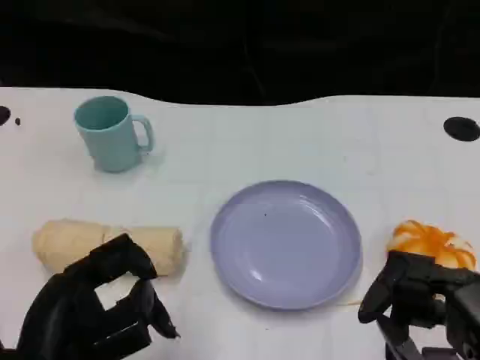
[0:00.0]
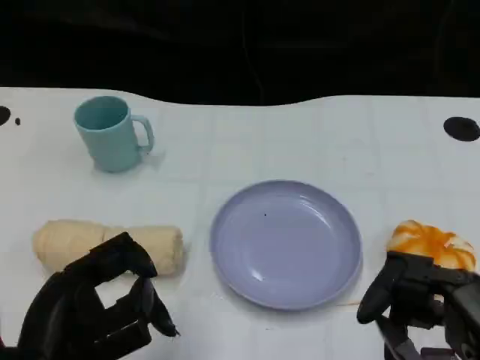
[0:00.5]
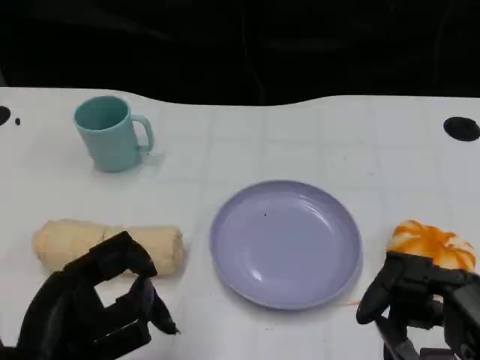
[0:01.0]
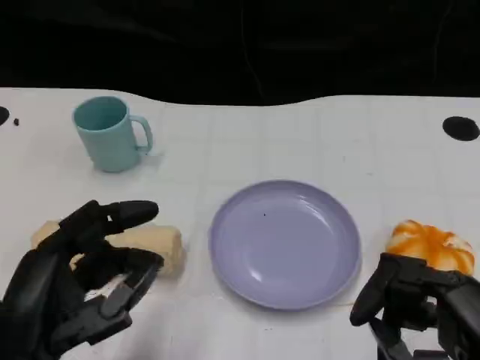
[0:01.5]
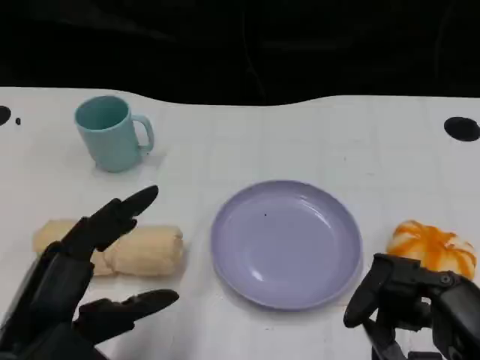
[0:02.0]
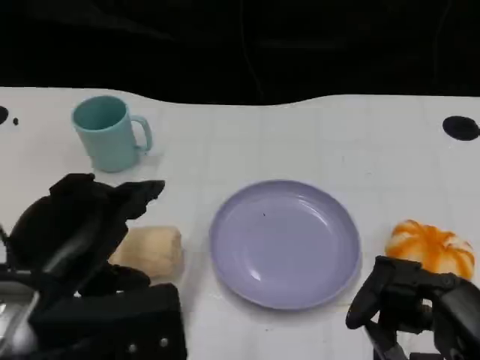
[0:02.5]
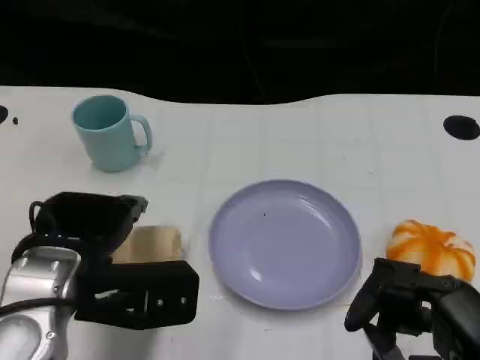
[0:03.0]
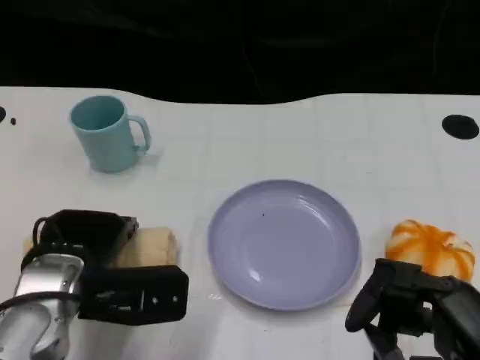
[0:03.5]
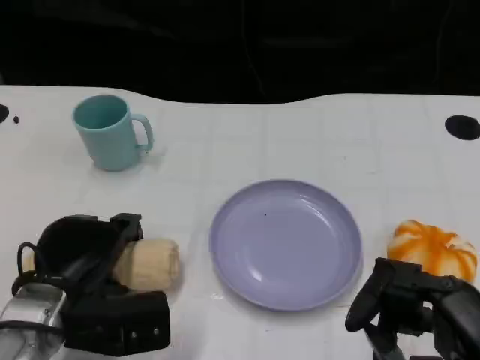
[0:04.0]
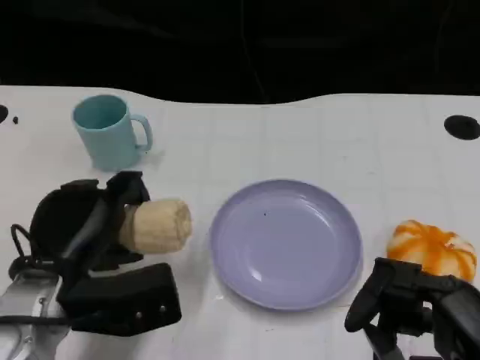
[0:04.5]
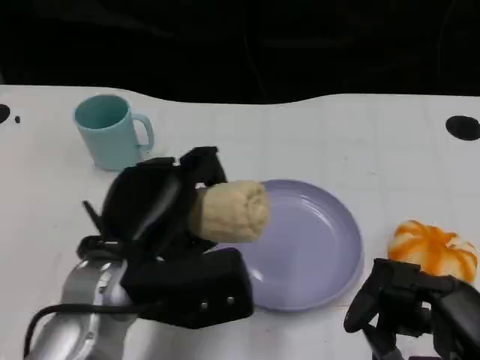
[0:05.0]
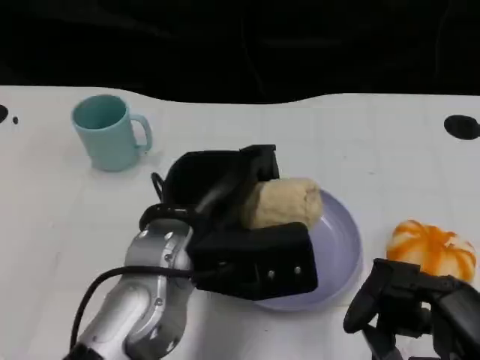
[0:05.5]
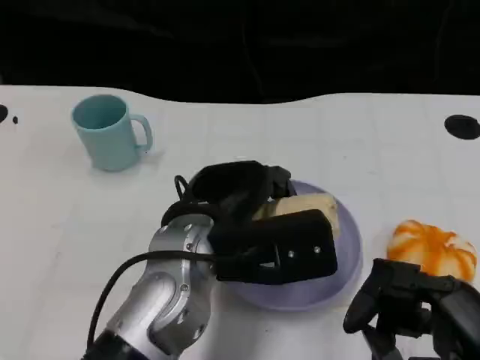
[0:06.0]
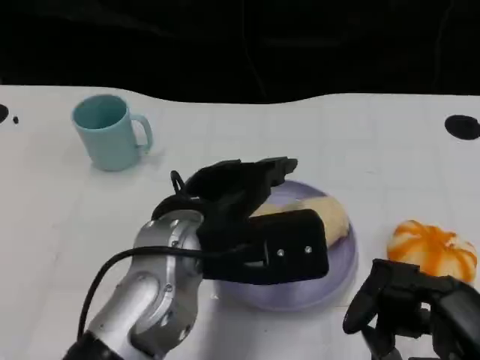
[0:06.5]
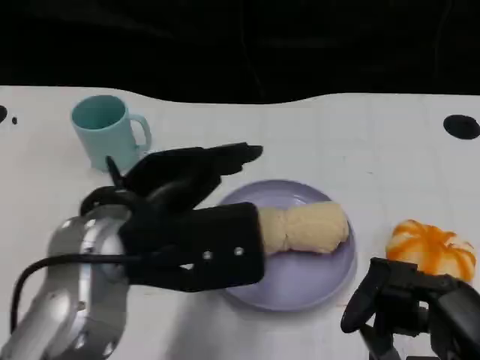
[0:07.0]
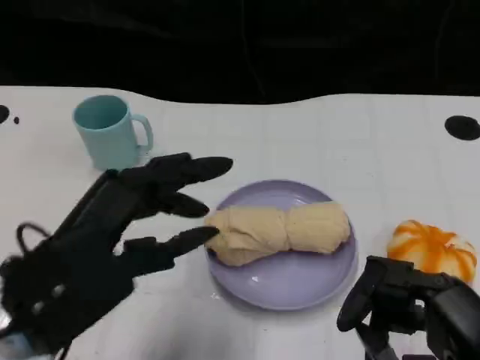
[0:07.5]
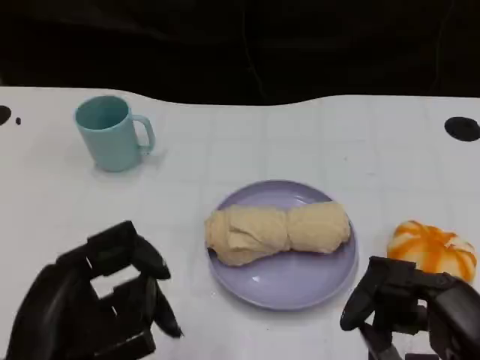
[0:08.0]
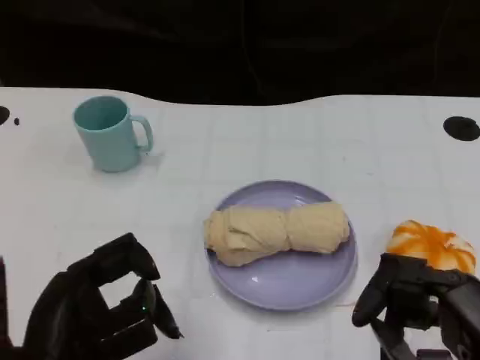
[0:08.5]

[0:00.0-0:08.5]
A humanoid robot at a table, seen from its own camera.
Task of the whole recording: Grasp the towel on the left side of the plate with the left hand and place it into the plate.
0:02.0 to 0:04.0: The left hand goes roughly 15 cm forward and downward.
0:04.0 to 0:06.5: The left hand shifts roughly 15 cm to the right and upward.
0:06.5 to 0:08.5: The left hand is displaced backward and to the left by about 15 cm.

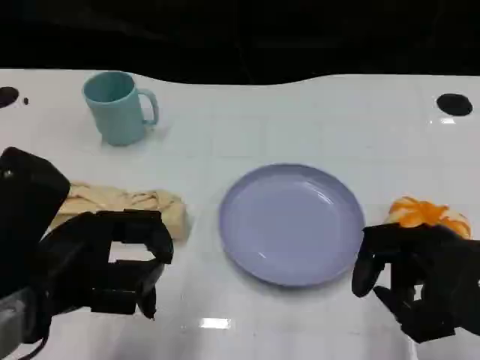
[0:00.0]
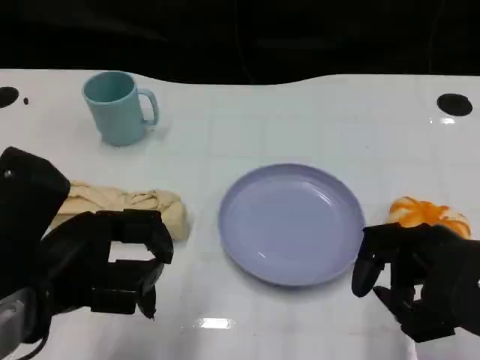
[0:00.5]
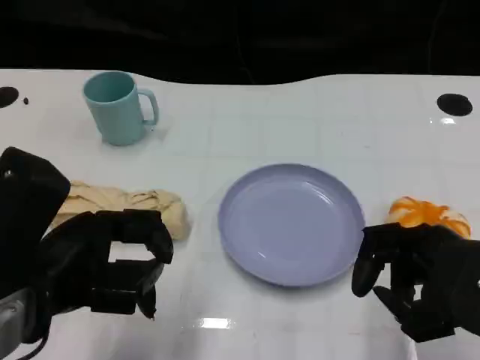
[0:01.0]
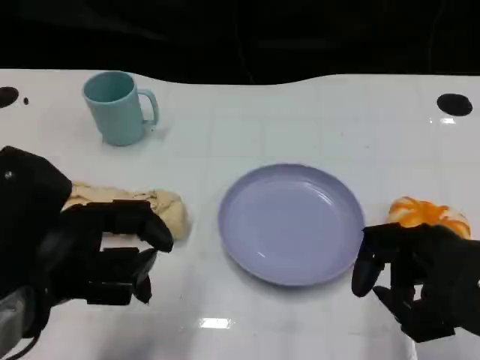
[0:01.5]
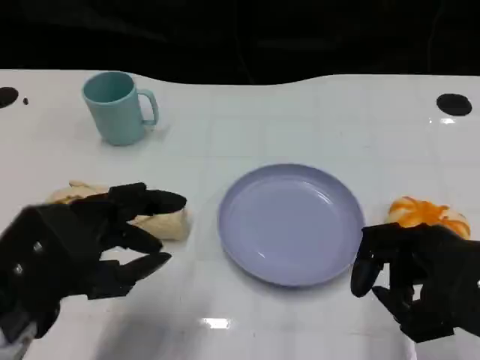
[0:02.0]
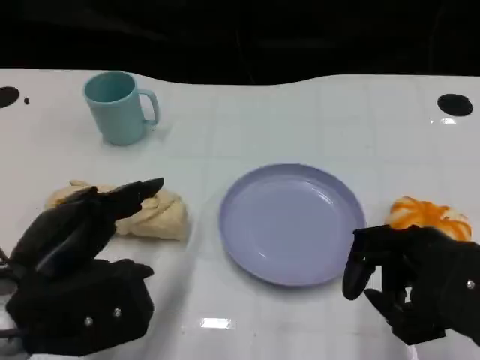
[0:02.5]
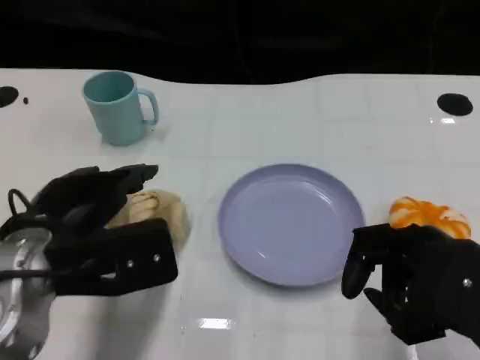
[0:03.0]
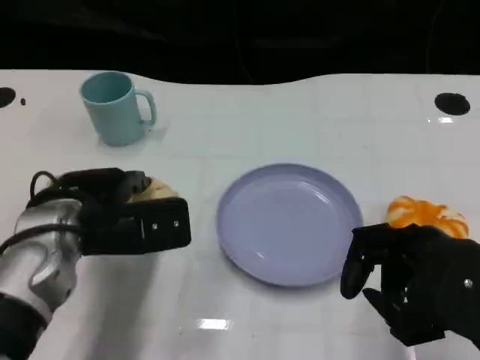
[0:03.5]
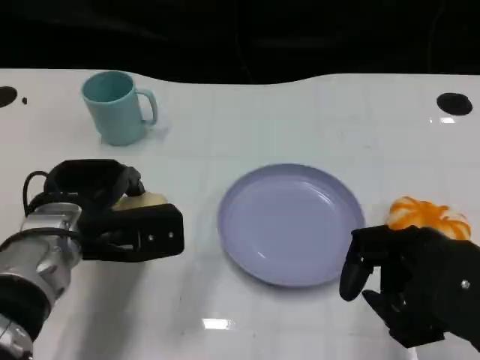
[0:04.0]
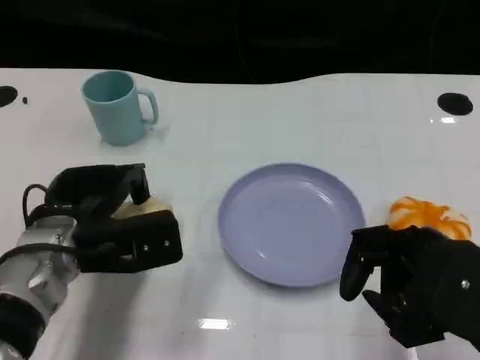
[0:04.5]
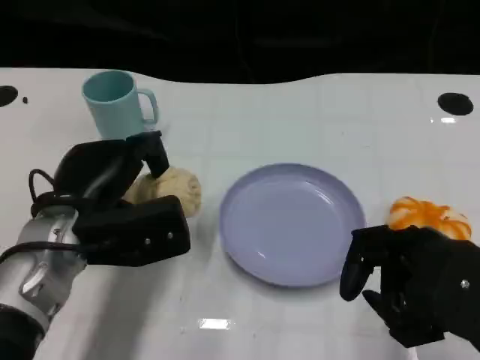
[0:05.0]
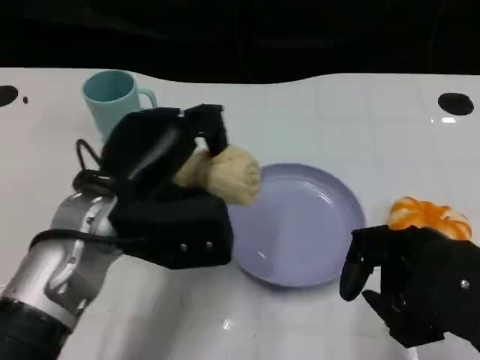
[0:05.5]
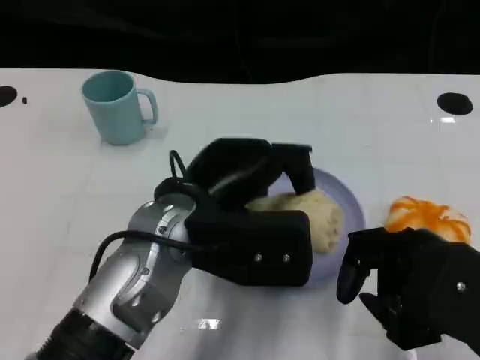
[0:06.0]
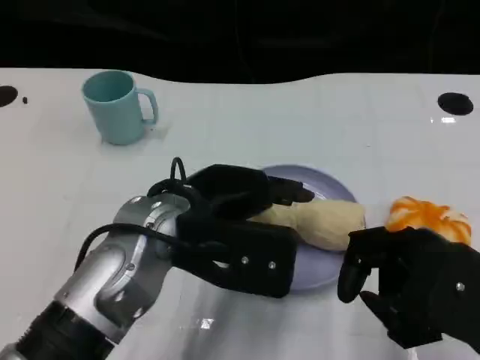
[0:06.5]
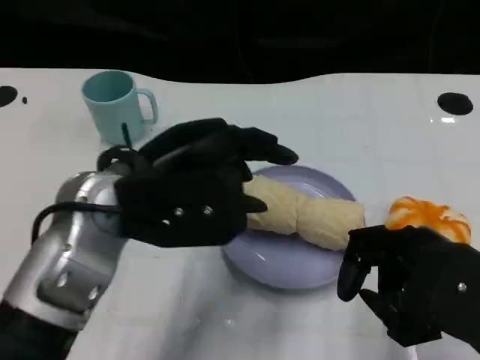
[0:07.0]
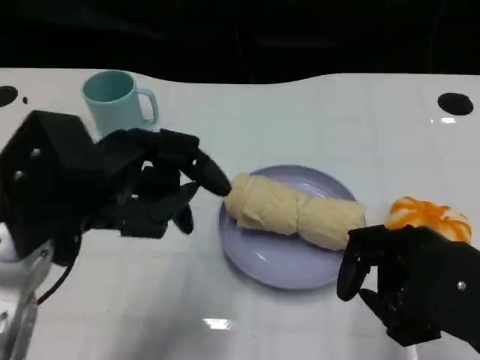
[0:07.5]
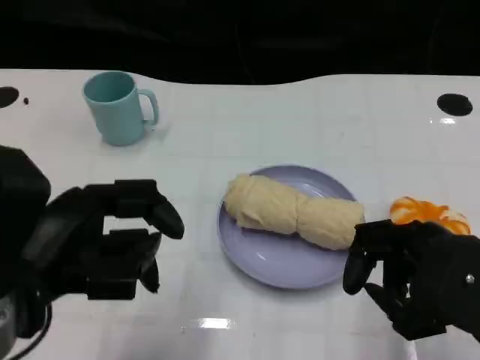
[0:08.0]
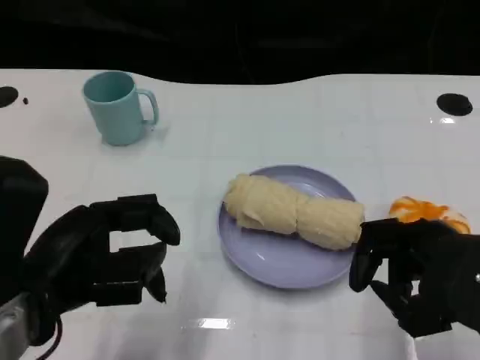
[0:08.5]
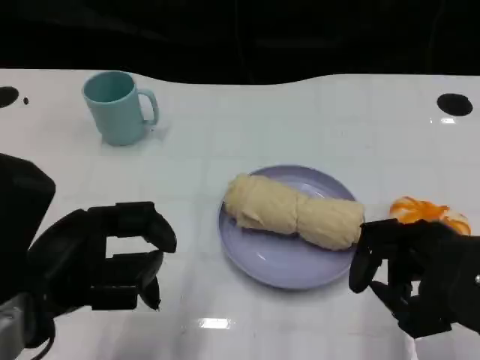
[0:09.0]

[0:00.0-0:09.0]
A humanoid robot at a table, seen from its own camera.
Task of the whole recording: Grasp the towel on the left side of the plate with the left hand and place it into the plate.
0:02.0 to 0:04.5: The left hand shifts roughly 10 cm forward and downward.
0:04.5 to 0:07.0: The left hand shifts about 10 cm upward.
0:07.0 to 0:09.0: The left hand goes about 10 cm to the left and backward.

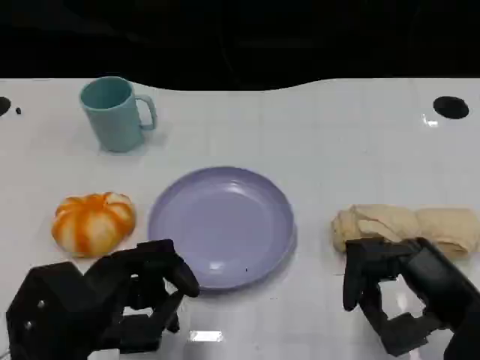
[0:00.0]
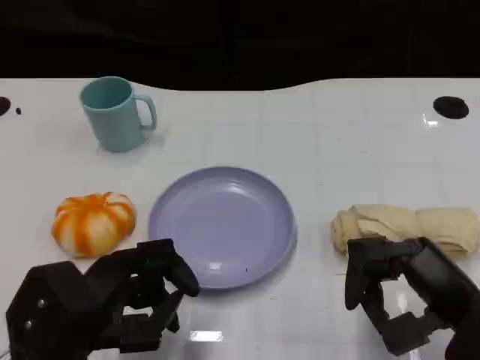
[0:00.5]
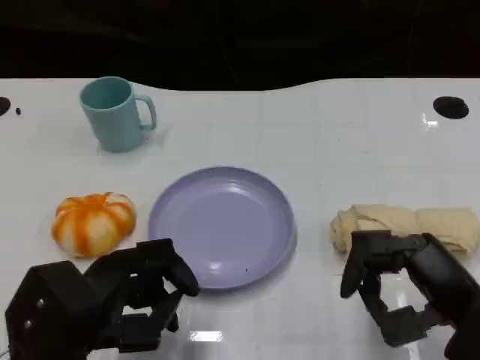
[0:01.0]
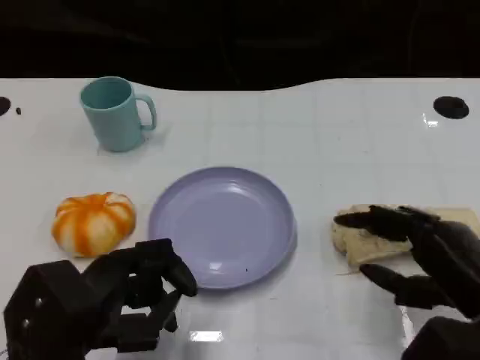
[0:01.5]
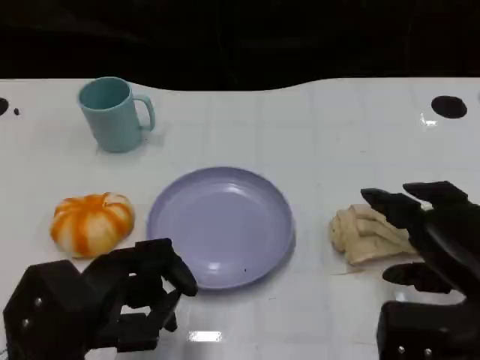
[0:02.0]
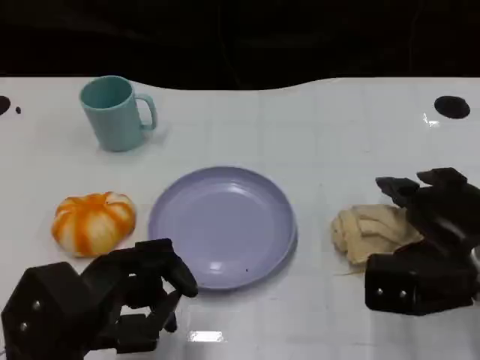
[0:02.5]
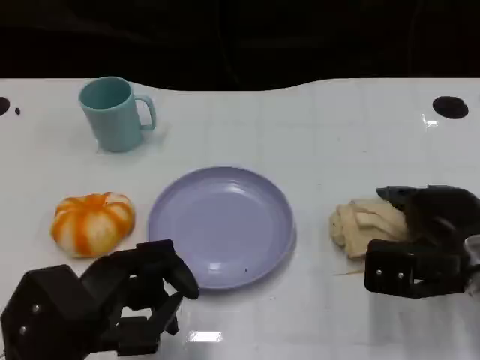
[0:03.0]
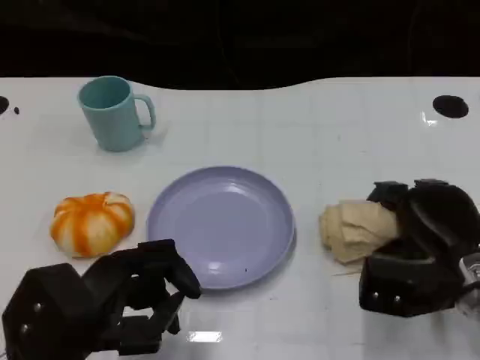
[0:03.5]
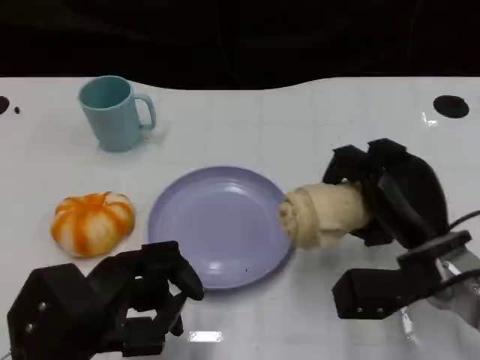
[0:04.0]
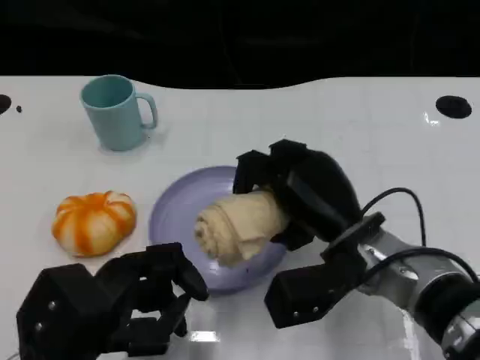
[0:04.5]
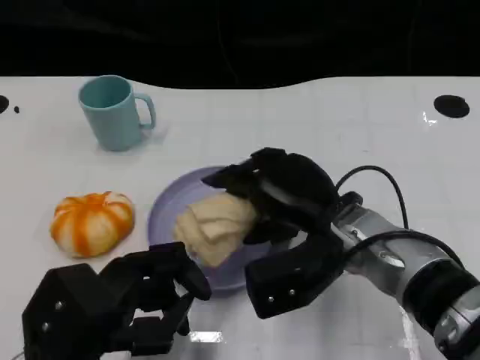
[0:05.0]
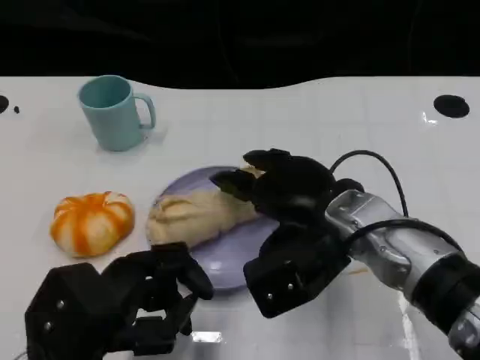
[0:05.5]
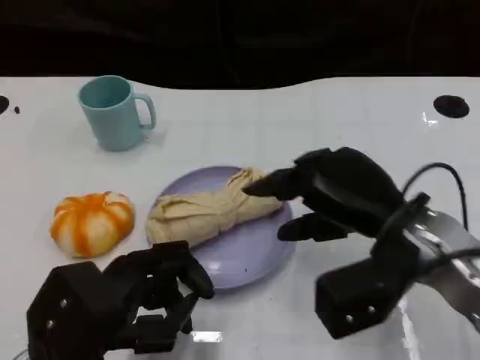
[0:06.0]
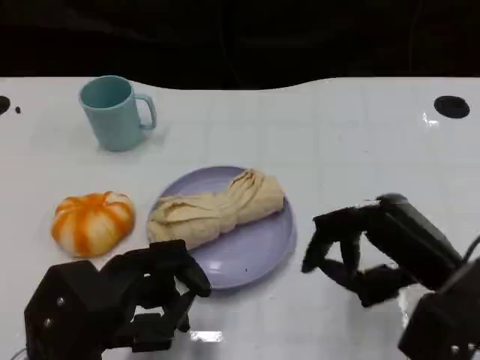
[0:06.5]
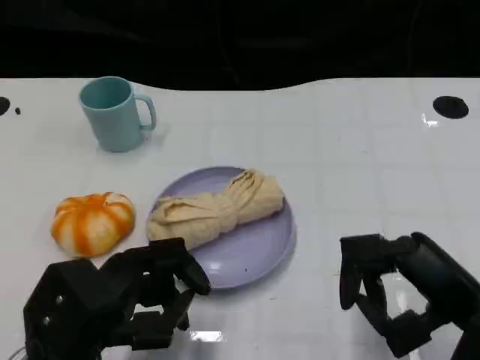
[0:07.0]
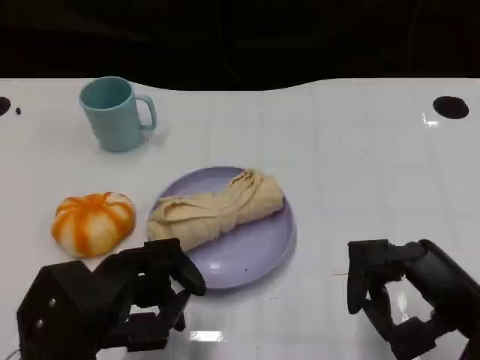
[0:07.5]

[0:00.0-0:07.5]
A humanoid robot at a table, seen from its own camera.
Task of the whole recording: Grasp the towel on the left side of the plate with the left hand and place it into the plate.
0:02.0 to 0:04.0: The right hand travels forward and to the left by approximately 10 cm.
0:04.0 to 0:05.5: The right hand heads to the left and upward, covering approximately 10 cm.
0:05.5 to 0:07.5: The right hand heads to the right and backward, covering approximately 15 cm.

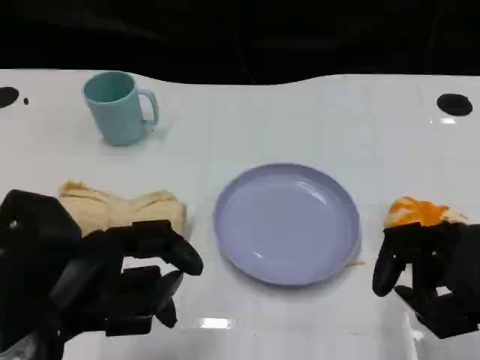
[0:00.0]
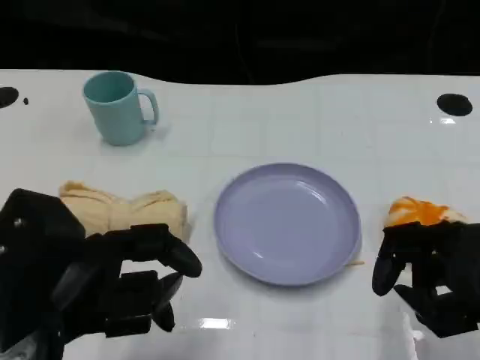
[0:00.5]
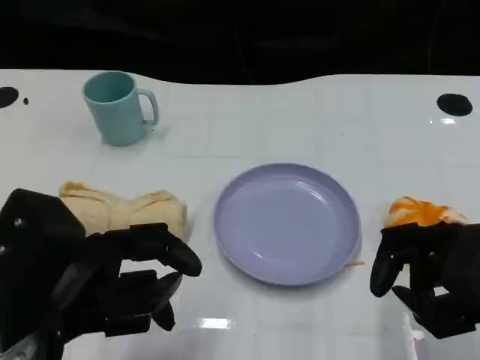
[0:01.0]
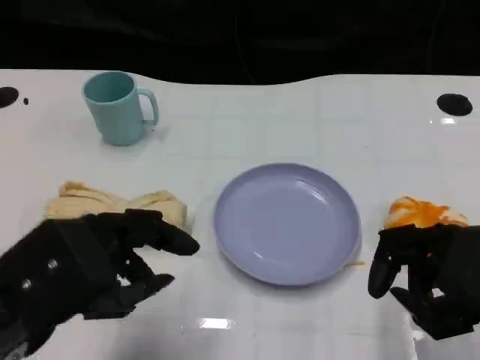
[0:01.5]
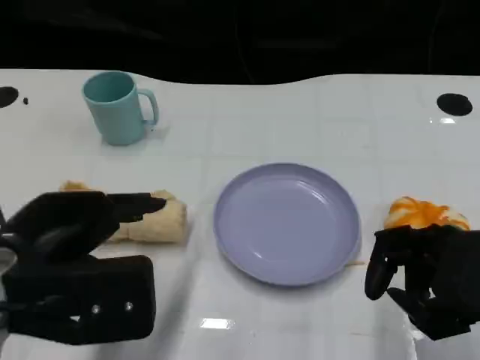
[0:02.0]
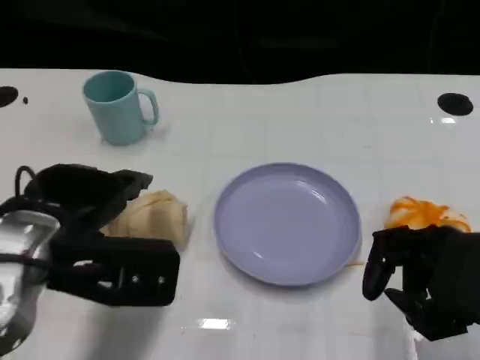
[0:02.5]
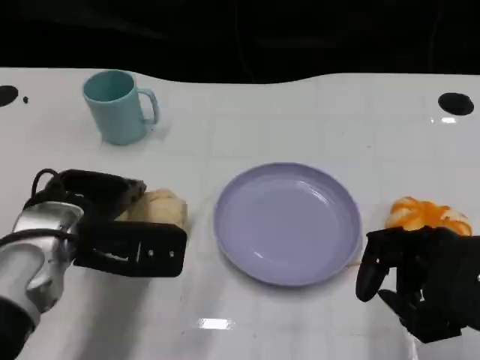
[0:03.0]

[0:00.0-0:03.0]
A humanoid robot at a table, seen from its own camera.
Task of the whole recording: Grasp the towel on the left side of the plate with the left hand and place it into the plate.
0:01.5 to 0:03.0: The left hand heads forward and downward, covering some 15 cm.
